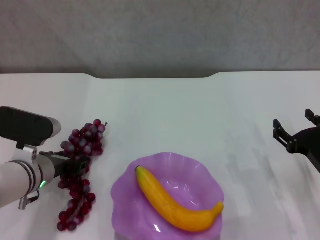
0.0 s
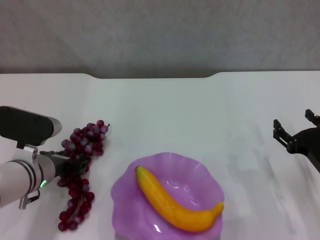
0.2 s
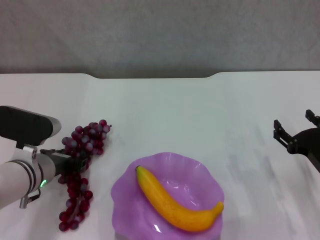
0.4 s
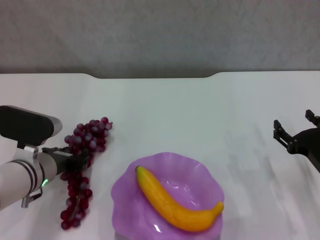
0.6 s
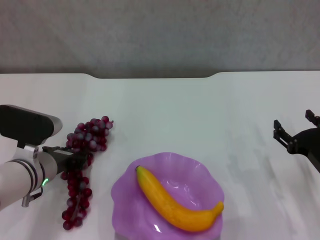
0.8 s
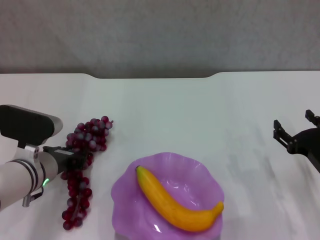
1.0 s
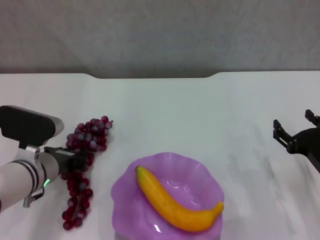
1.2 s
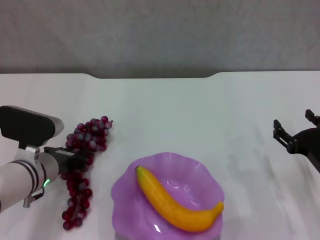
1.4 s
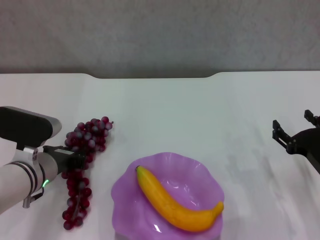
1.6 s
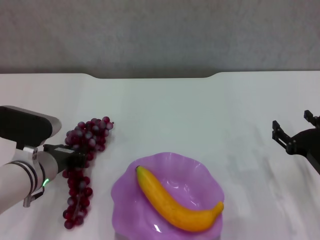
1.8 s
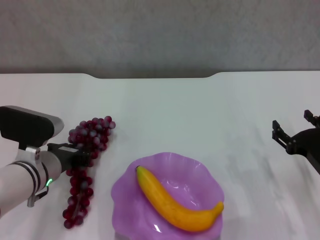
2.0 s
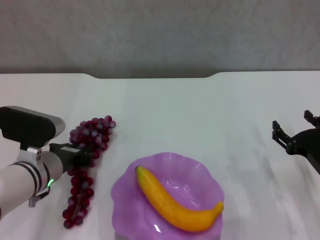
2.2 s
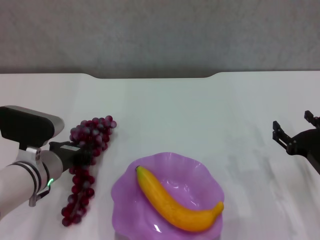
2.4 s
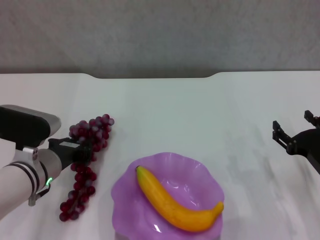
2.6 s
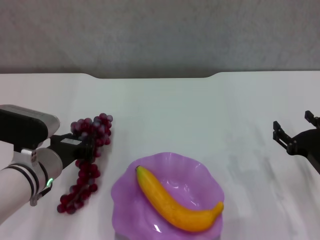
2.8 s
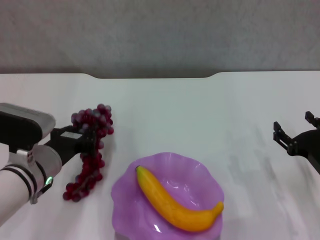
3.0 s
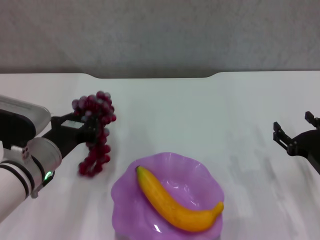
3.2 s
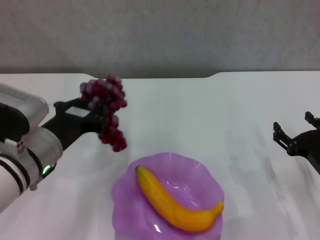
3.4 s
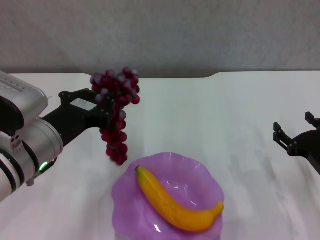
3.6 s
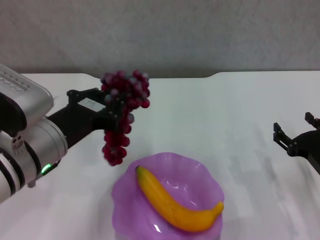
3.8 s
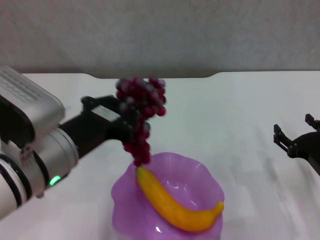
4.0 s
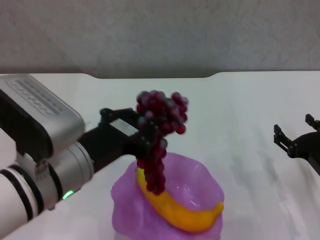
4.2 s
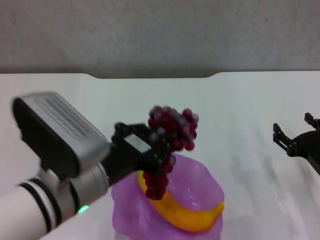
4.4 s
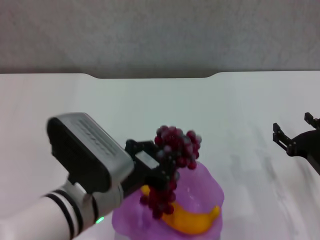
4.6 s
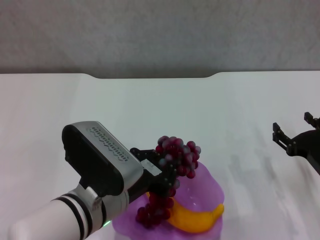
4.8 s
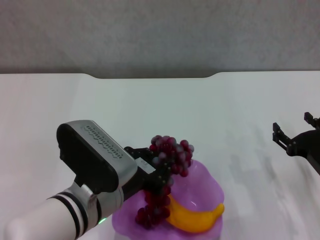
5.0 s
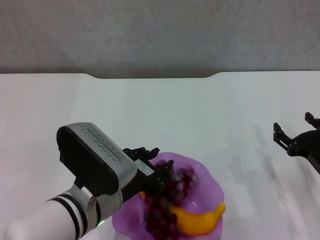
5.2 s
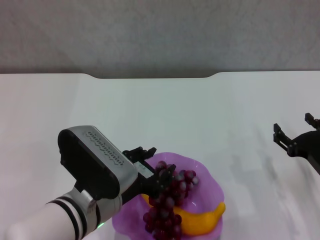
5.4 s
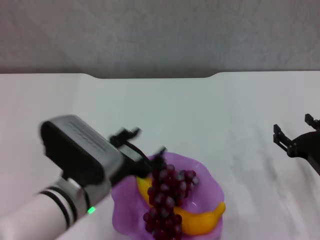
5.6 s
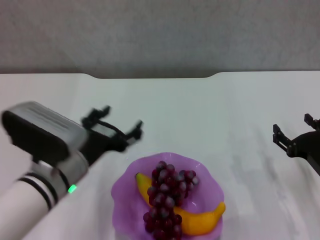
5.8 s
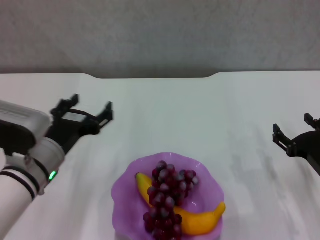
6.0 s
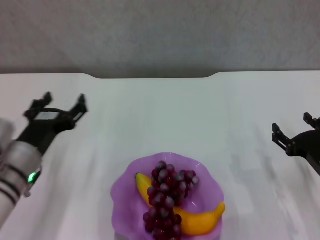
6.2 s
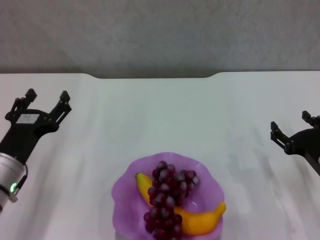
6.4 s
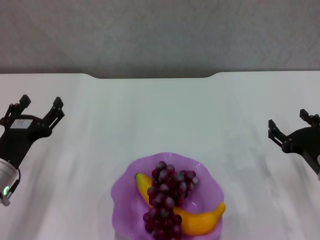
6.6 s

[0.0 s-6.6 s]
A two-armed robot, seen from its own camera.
0.0 to 1.6 s: The left gripper closes up.
1.6 to 3.2 s: The left gripper shifts by roughly 5 cm.
3.2 to 5.0 s: The left gripper goes about 10 cm to the right and backward.
5.0 to 6.6 s: The left gripper moves to the left, about 15 cm, and opens its fingers.

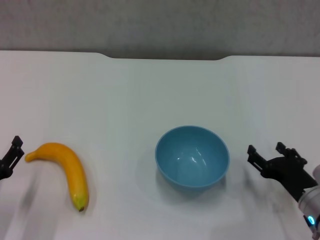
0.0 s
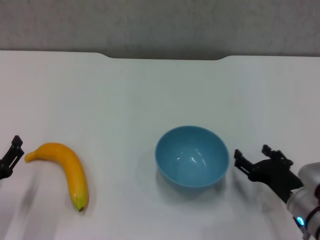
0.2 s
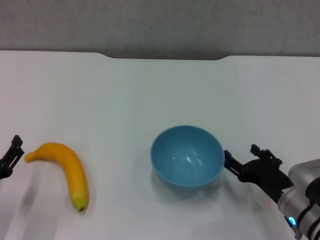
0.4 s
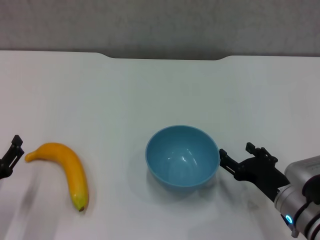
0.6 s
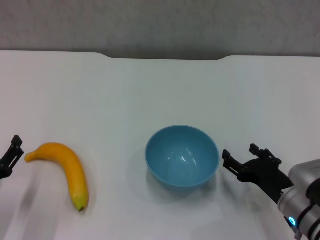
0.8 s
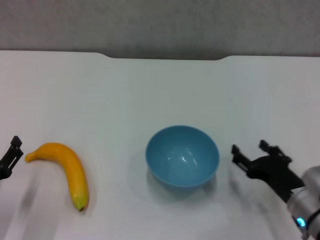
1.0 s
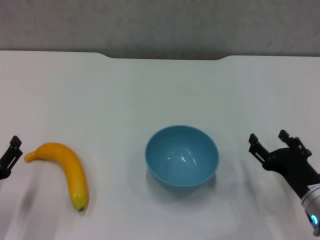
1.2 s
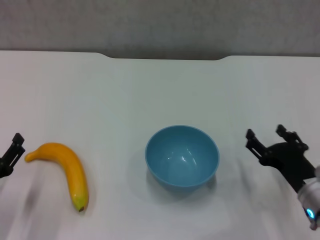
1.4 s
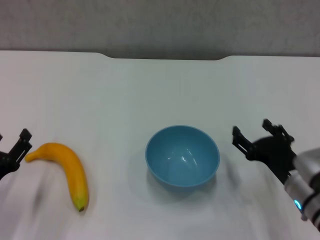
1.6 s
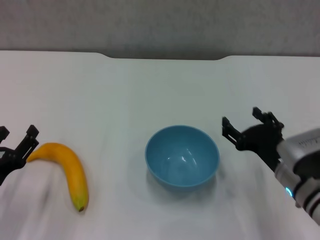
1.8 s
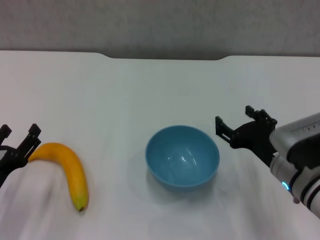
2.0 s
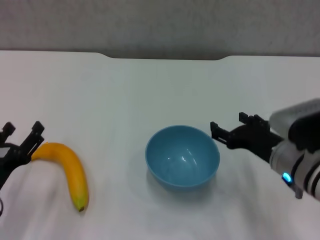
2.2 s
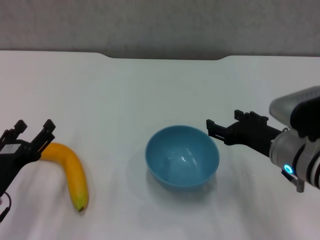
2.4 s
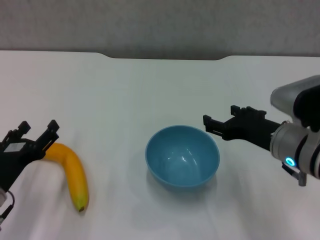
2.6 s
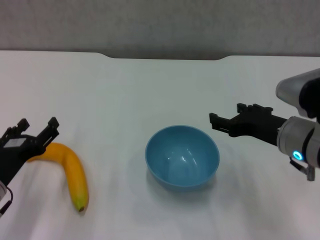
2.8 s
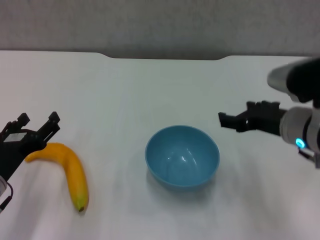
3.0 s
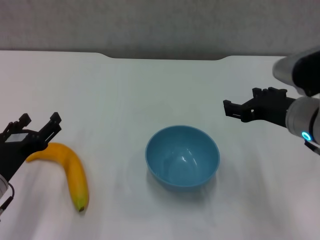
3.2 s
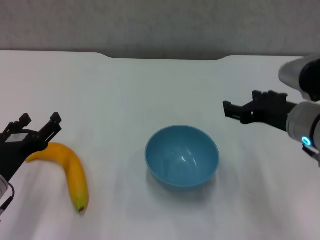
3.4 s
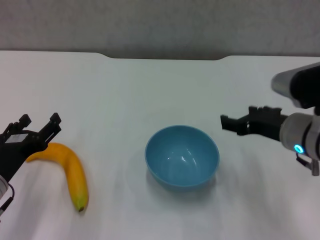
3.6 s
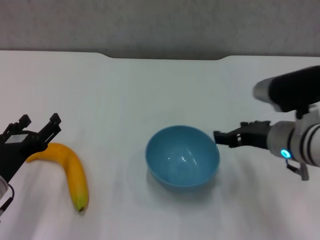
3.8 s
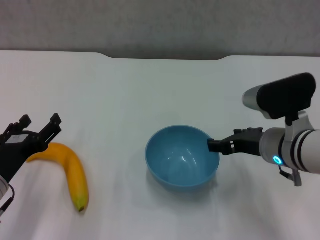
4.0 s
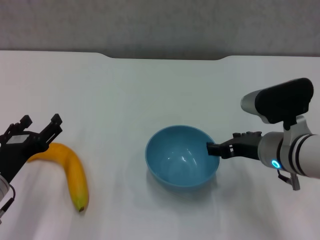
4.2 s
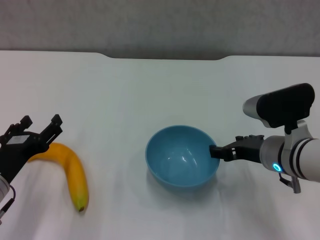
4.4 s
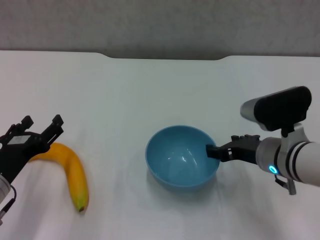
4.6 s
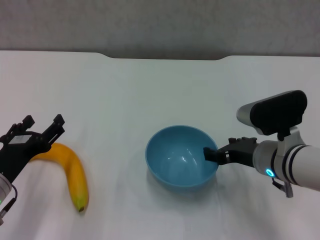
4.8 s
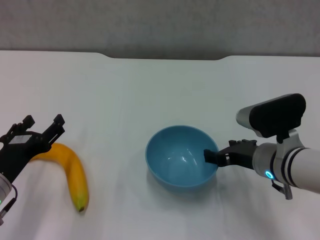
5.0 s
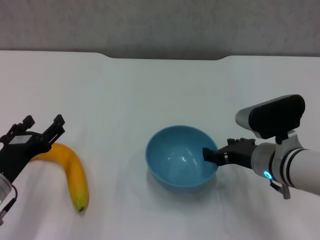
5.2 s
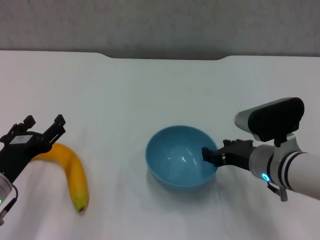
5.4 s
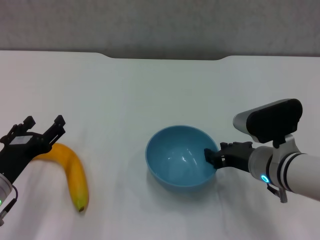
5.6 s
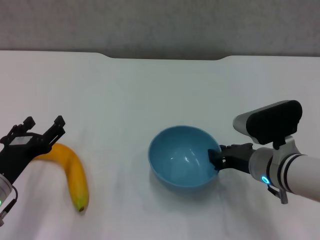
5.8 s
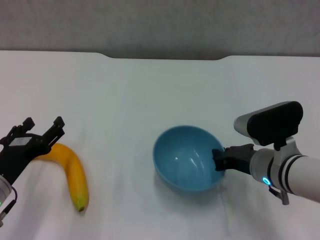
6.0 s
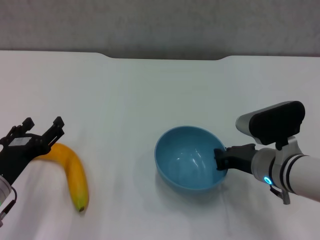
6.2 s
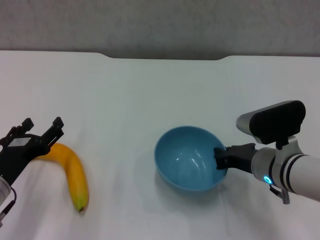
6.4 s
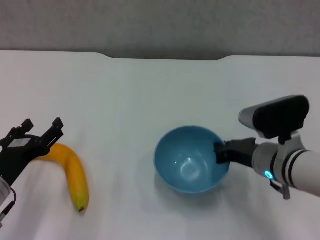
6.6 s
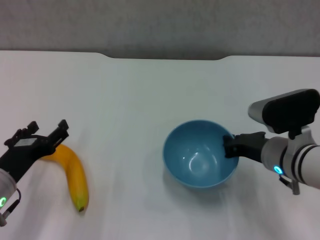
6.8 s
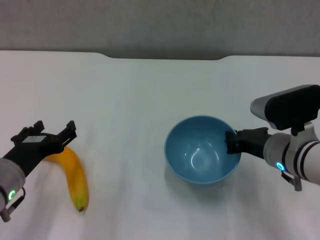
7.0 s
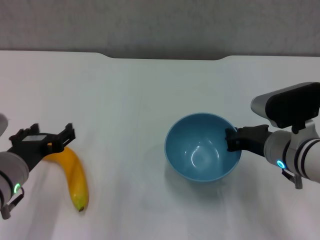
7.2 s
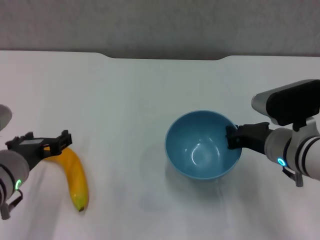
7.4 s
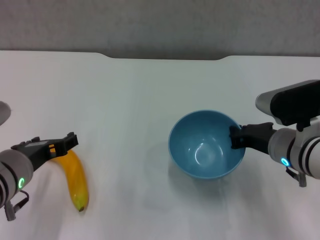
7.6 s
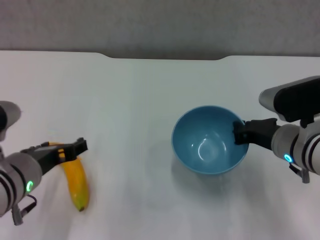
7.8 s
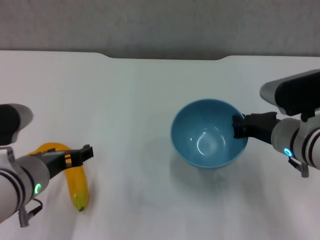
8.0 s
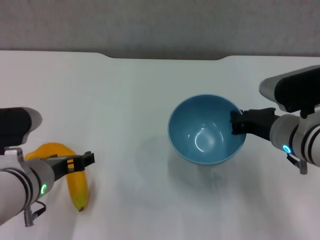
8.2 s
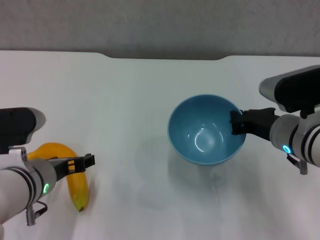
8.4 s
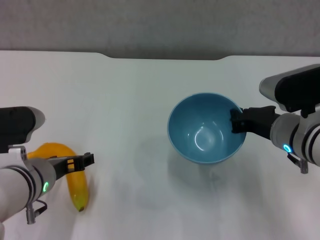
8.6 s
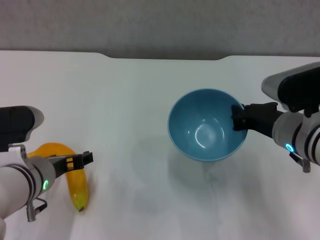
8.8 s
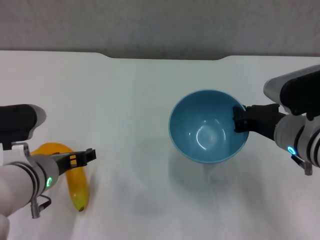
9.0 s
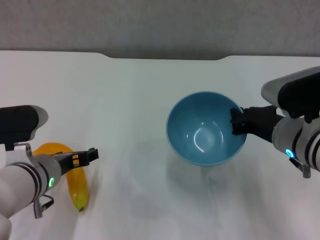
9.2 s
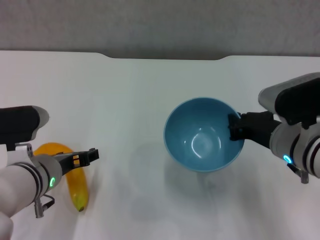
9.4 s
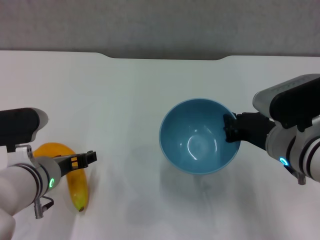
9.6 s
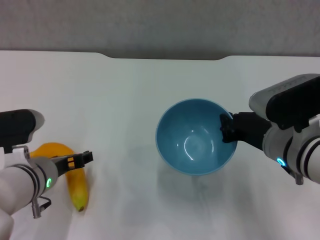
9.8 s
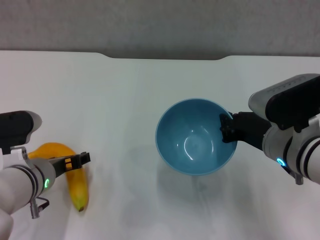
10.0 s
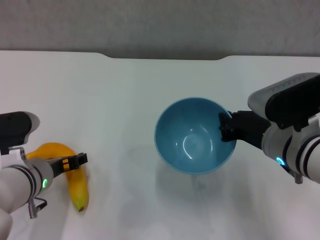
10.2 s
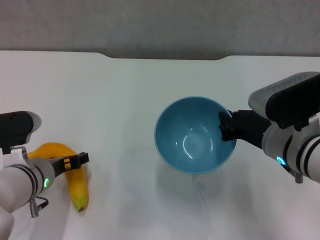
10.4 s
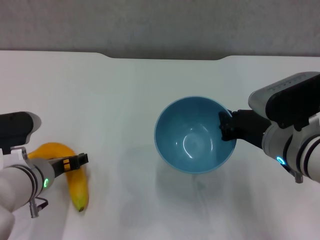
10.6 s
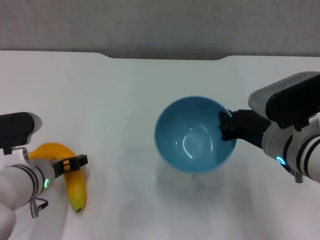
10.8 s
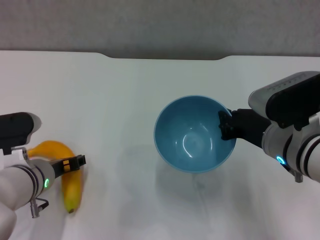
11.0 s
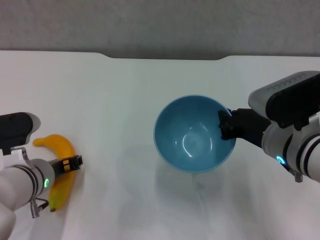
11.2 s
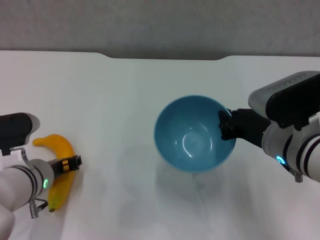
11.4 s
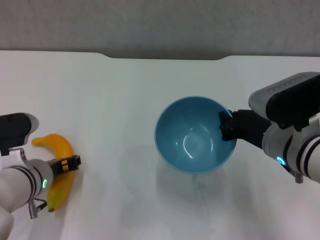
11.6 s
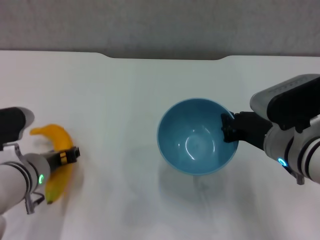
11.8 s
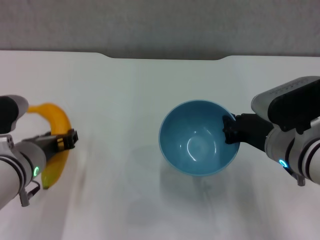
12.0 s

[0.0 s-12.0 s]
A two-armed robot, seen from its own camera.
Step, 0.0 to 6.0 s: Grasp the blue bowl with right gripper.
Step, 6.2 to 6.8 s: Lift the blue bowl with right gripper.
Step, 7.2 to 11.4 s: Grasp the banana with left gripper.
0.0 to 1.6 s: The grippers make only small movements.
1.6 to 3.0 s: The left gripper ends up some 5 cm from where it was, while the right gripper travels upward and forward by roughly 10 cm.
3.0 to 4.4 s: The right gripper moves downward, some 5 cm.
4.4 to 6.0 s: The right gripper closes.
6.0 to 7.6 s: The left gripper is displaced upward and to the right by about 10 cm.
9.0 to 10.4 s: The grippers move only a little.
10.4 to 12.0 s: The left gripper closes its fingers.

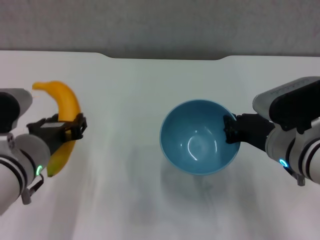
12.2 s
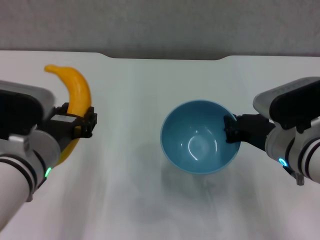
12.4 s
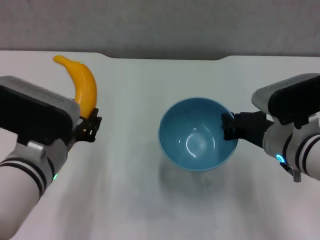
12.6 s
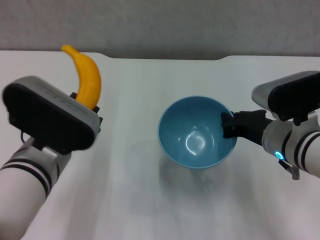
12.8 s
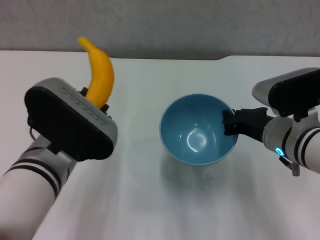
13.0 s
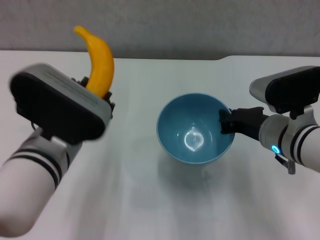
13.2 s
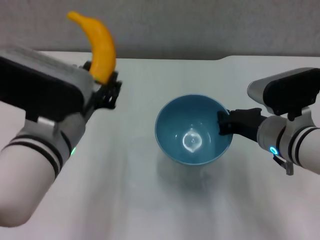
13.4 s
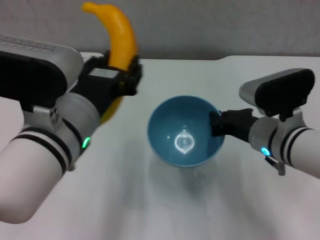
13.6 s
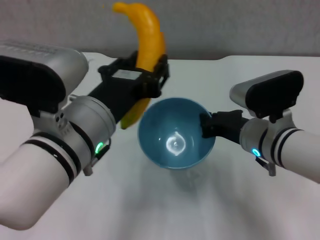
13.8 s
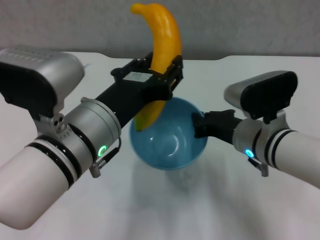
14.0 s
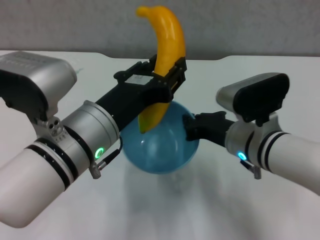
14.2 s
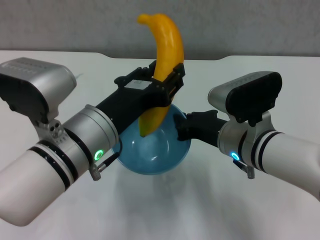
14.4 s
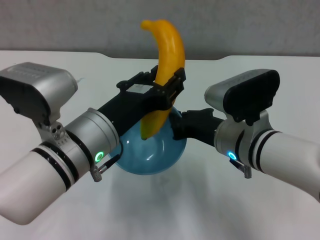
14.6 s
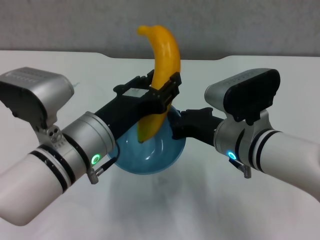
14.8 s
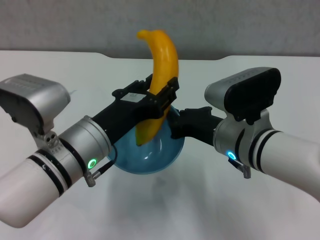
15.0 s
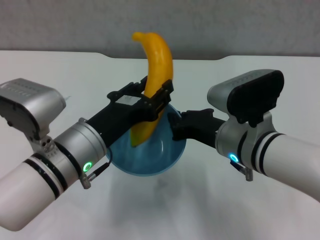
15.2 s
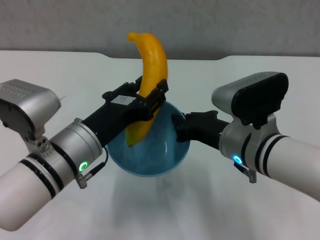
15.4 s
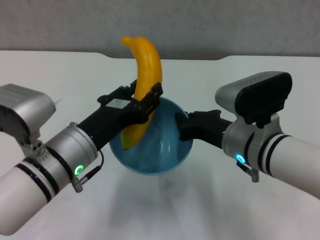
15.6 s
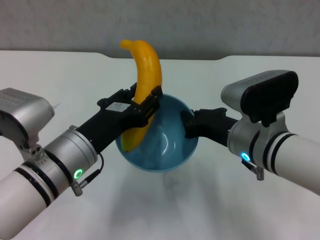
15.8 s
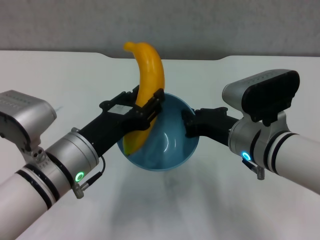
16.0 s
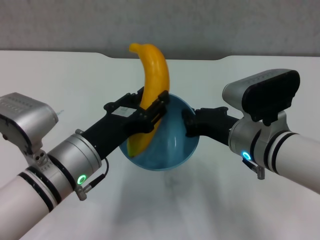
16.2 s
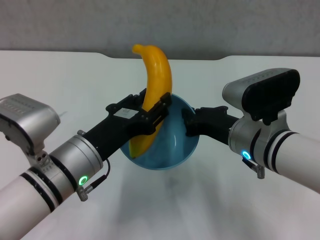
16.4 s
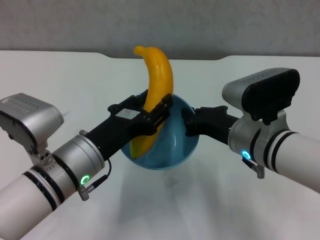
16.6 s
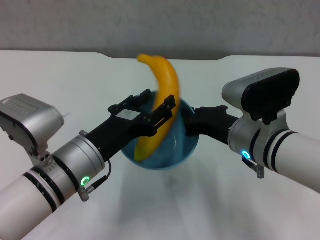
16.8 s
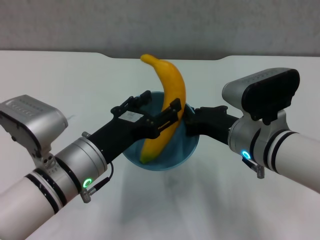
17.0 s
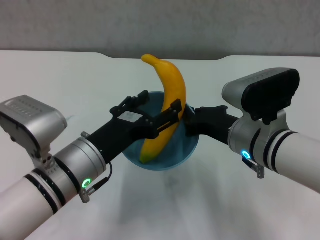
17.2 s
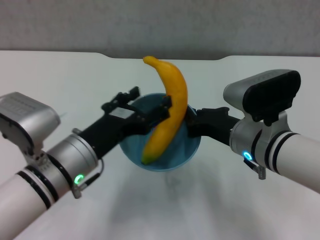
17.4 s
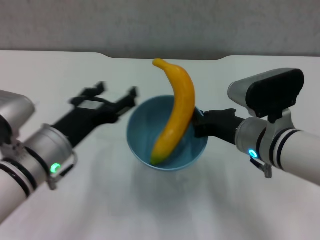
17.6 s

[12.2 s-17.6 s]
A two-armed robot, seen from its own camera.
Step, 12.2 to 17.4 s: Place the banana in the blue bowl with left gripper.
12.2 to 13.6 s: The left gripper is displaced to the right and upward by roughly 10 cm.
13.6 to 15.0 s: The right gripper goes approximately 5 cm to the left; the left gripper heads downward, covering about 5 cm.
16.2 to 17.6 s: The left gripper opens up.
